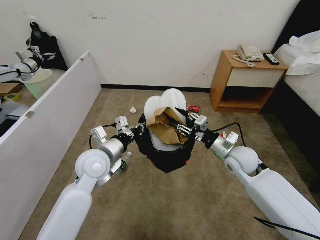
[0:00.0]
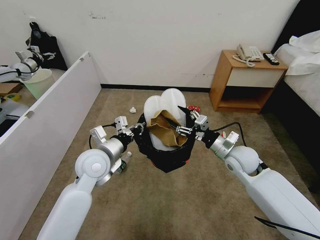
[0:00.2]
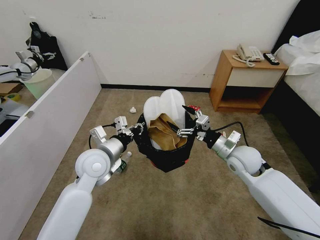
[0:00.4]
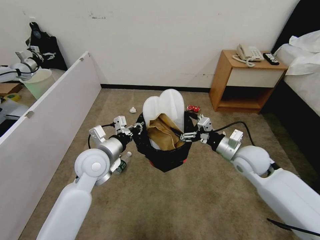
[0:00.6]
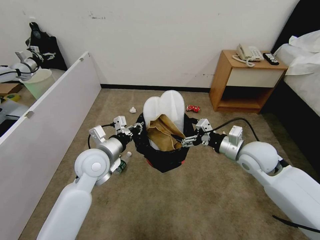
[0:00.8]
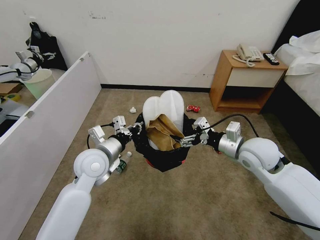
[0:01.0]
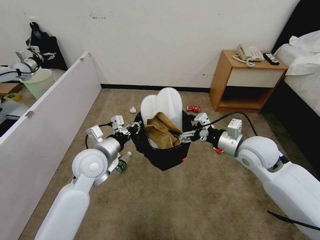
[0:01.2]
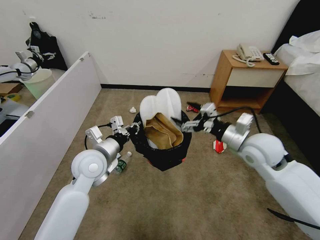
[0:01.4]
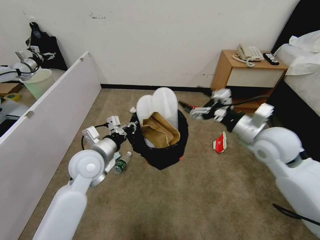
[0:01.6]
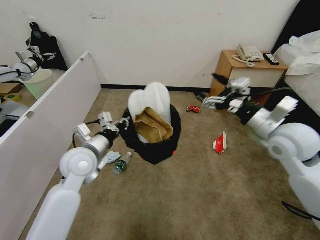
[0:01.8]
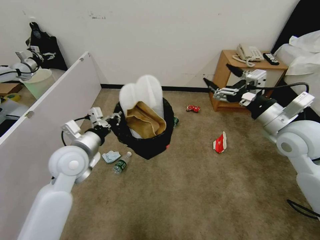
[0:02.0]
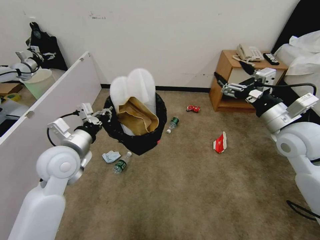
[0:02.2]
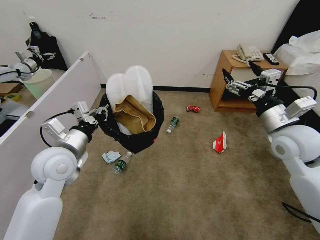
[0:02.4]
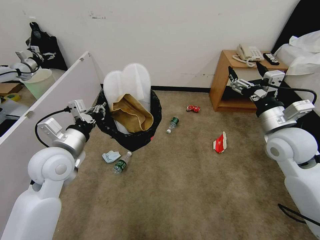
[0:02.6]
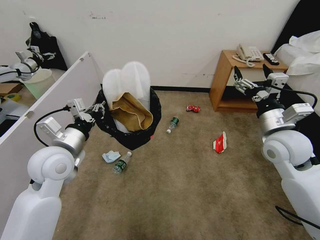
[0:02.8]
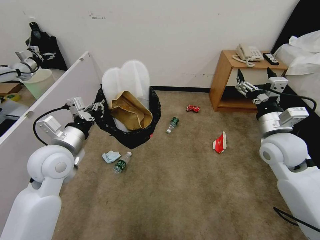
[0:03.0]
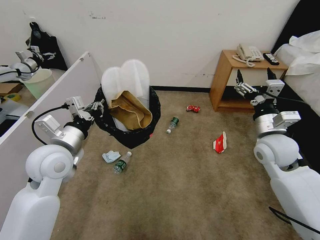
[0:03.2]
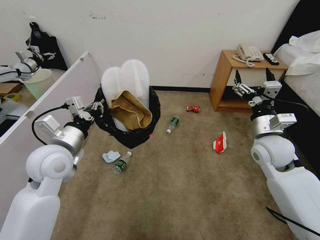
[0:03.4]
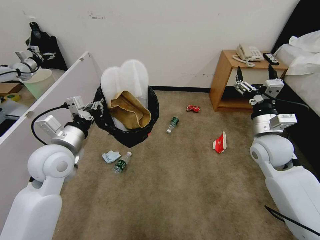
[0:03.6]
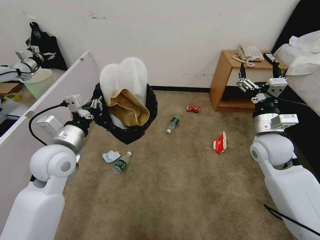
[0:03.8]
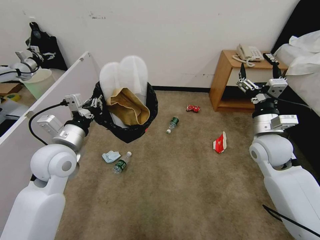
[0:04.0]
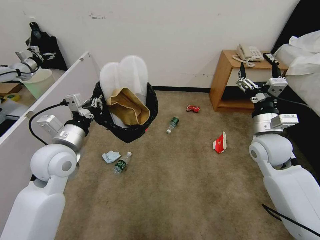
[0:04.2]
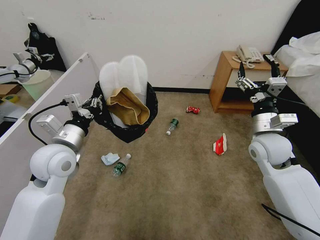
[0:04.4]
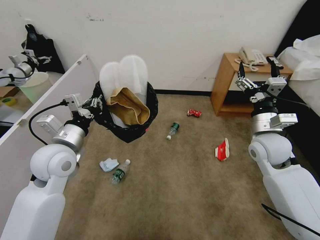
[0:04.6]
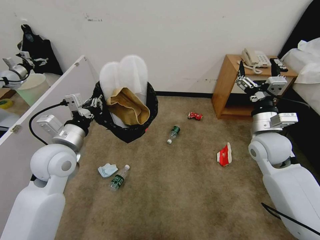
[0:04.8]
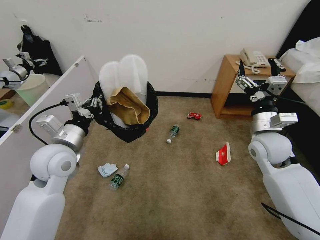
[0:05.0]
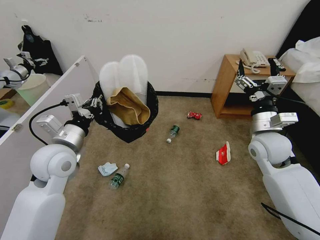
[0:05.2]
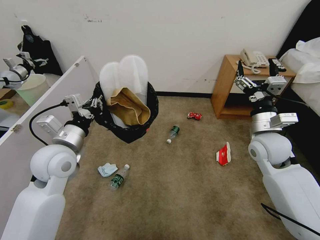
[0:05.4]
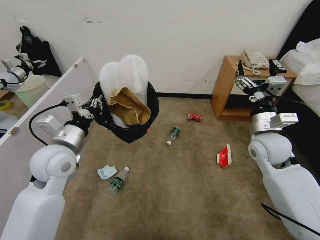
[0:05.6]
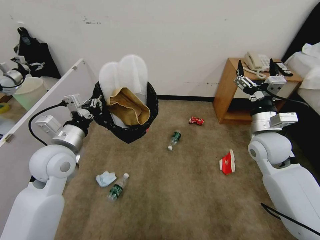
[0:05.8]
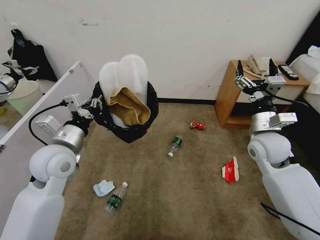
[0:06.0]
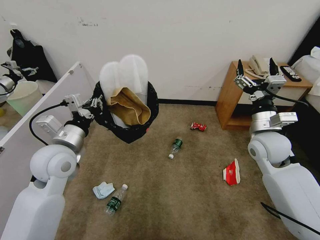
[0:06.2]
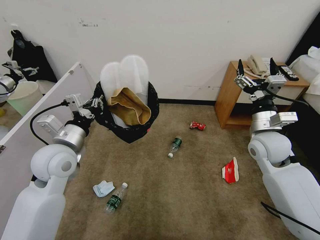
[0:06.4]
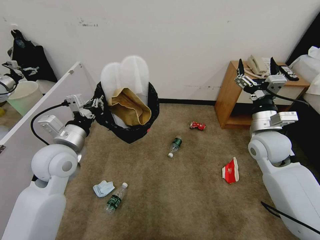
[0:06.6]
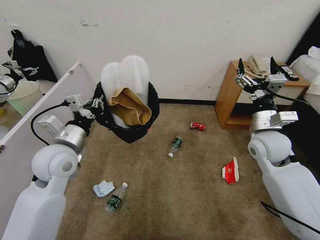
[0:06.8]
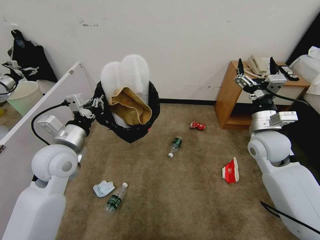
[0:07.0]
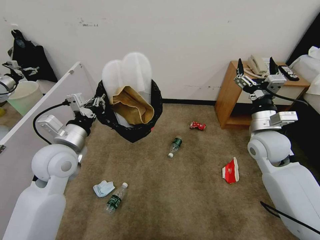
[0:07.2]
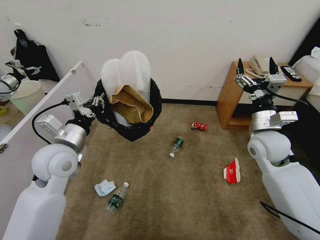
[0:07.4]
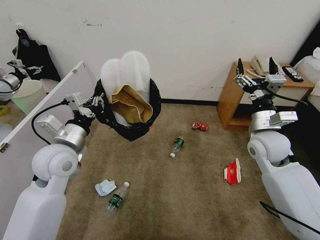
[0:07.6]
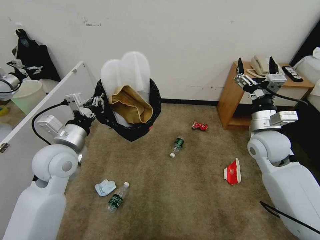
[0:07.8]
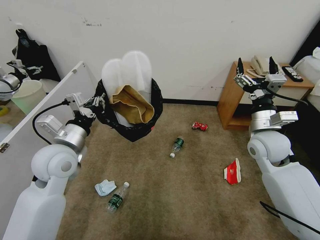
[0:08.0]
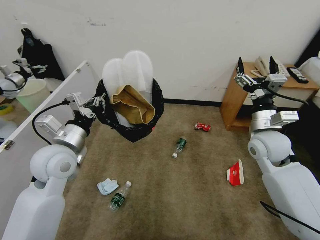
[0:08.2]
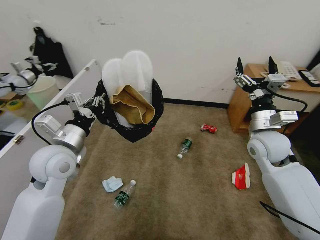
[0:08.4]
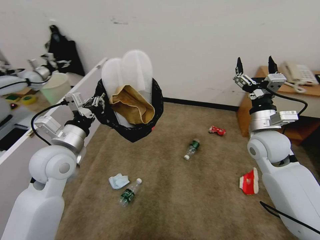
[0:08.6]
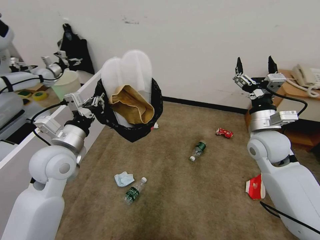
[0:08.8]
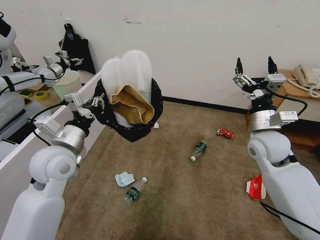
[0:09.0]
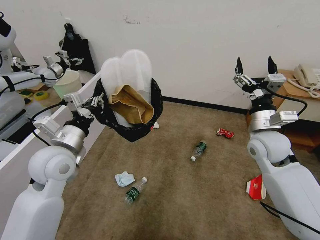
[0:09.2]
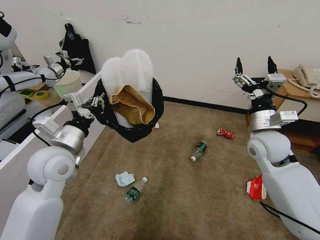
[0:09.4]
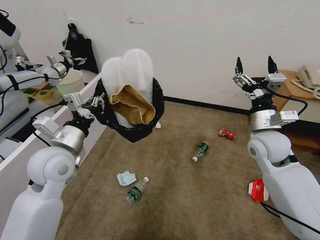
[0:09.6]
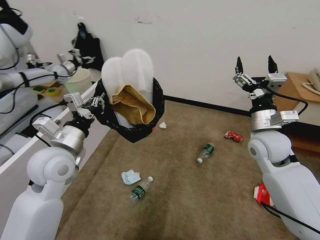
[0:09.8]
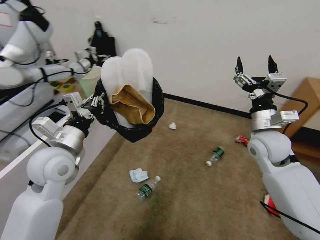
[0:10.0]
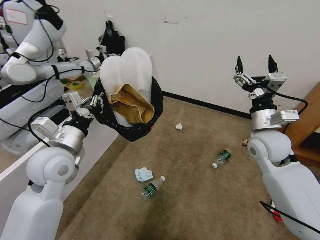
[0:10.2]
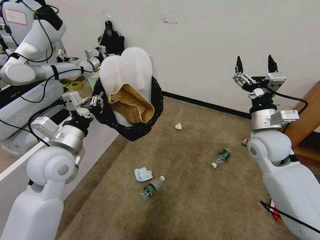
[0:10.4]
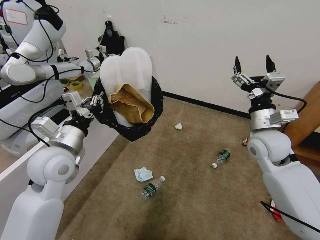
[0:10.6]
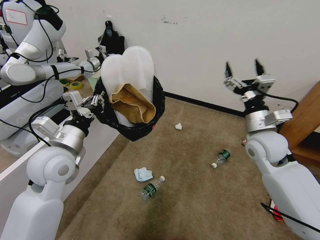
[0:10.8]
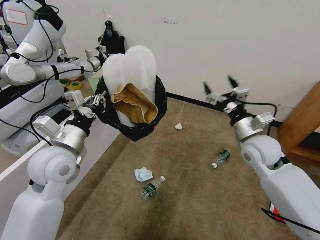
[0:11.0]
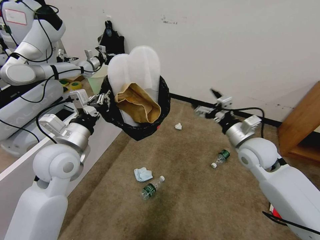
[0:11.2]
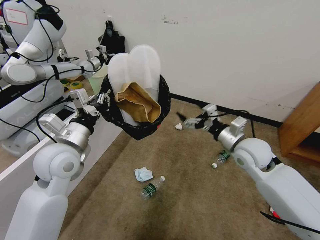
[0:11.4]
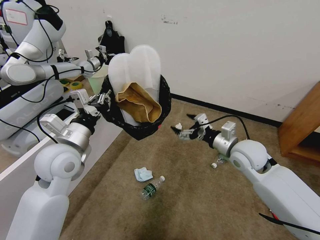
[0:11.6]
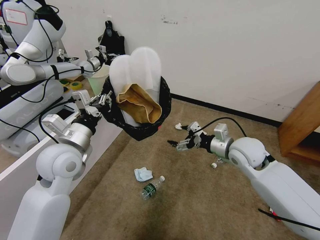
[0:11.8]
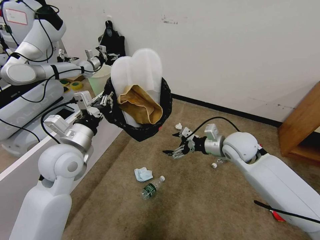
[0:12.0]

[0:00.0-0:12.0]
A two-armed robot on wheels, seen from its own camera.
Task of the whole recording: Pick up the trash bin, then pick up the garbage from the floor and place it into the trash bin.
0:00.0 to 0:01.6: The right gripper travels upward by roughly 10 cm, and opens up.
0:01.6 to 0:03.0: The left gripper travels to the left and upward by roughly 10 cm.
0:03.0 to 0:04.4: There are only small adjustments of the grippers.
0:06.0 to 0:07.6: Neither gripper changes place.
0:10.4 to 0:12.0: The right gripper is displaced to the left by some 5 cm.

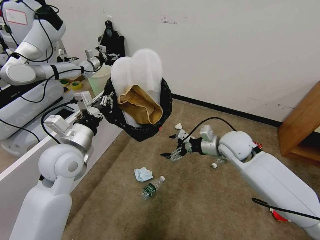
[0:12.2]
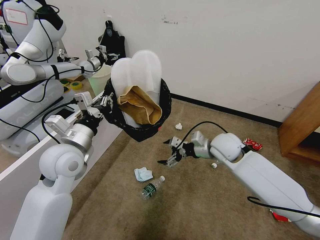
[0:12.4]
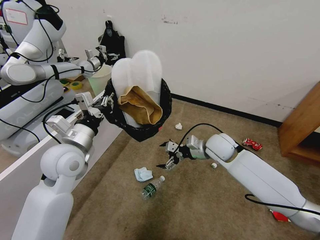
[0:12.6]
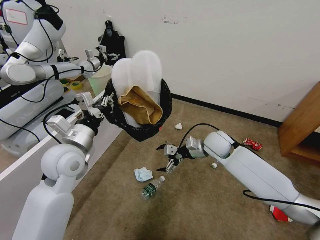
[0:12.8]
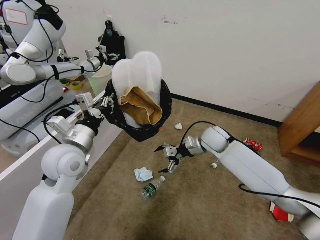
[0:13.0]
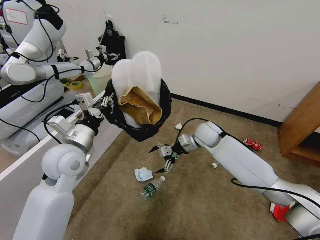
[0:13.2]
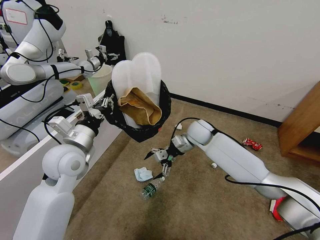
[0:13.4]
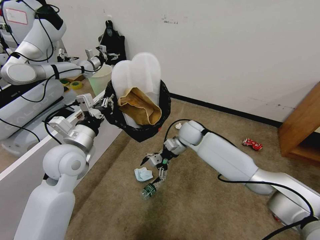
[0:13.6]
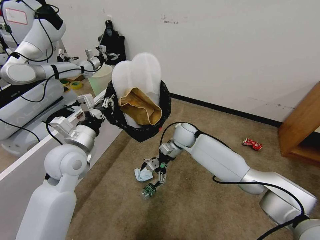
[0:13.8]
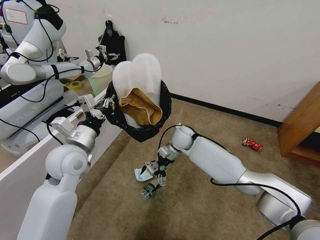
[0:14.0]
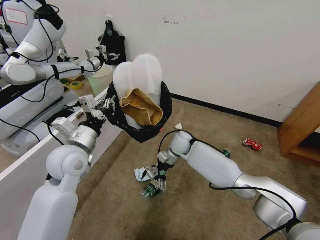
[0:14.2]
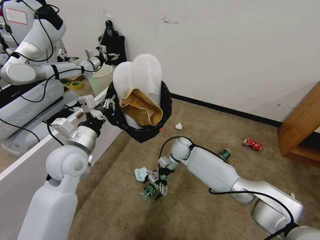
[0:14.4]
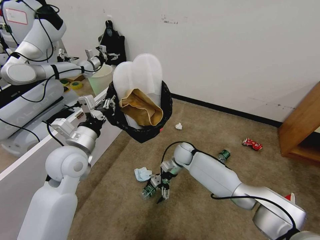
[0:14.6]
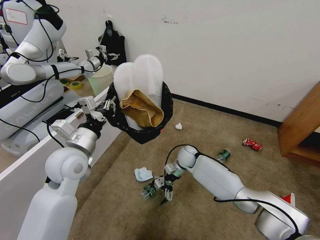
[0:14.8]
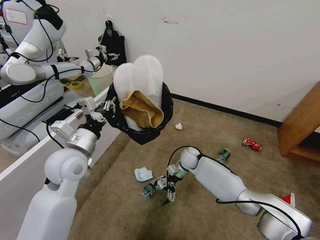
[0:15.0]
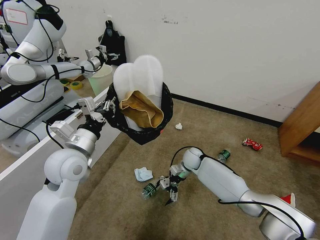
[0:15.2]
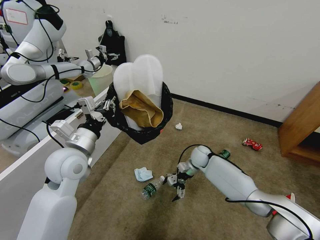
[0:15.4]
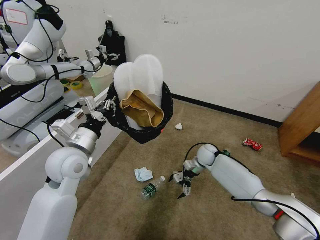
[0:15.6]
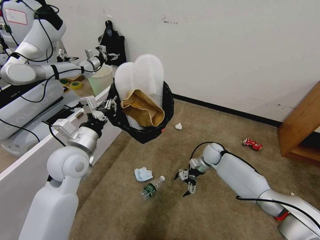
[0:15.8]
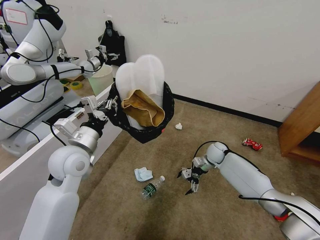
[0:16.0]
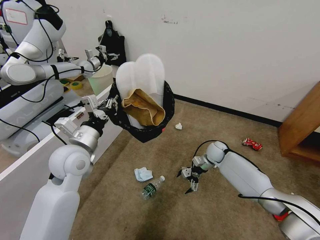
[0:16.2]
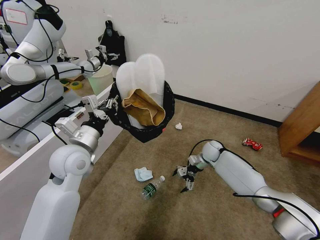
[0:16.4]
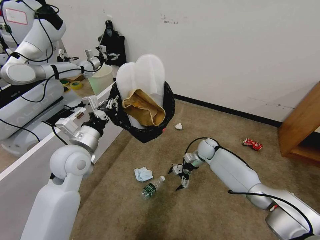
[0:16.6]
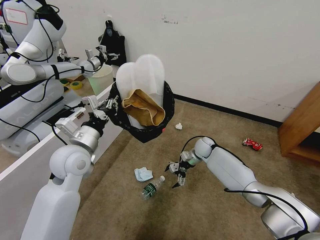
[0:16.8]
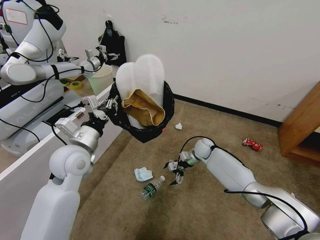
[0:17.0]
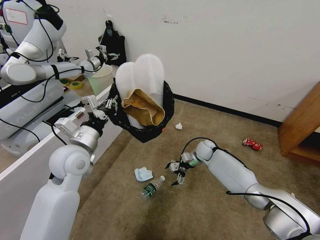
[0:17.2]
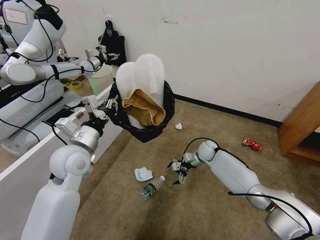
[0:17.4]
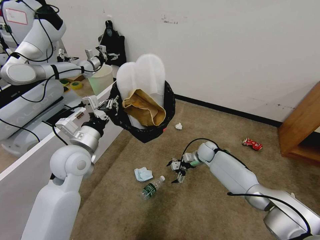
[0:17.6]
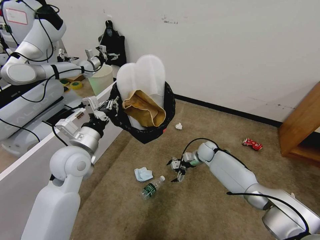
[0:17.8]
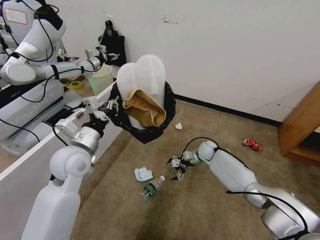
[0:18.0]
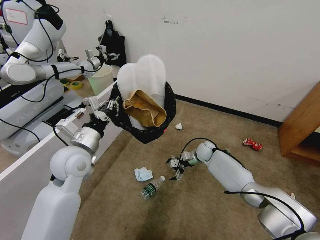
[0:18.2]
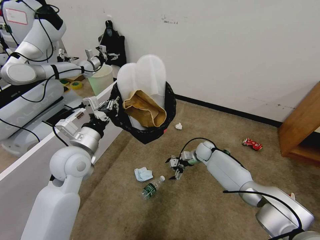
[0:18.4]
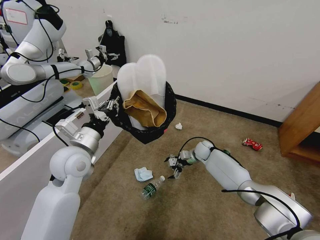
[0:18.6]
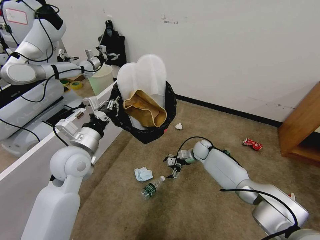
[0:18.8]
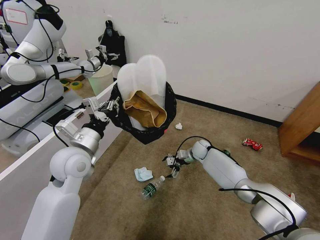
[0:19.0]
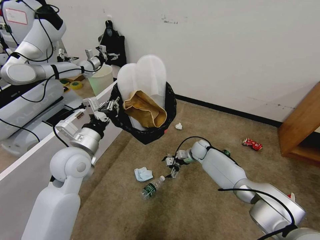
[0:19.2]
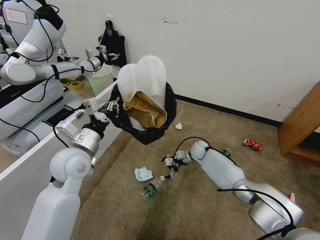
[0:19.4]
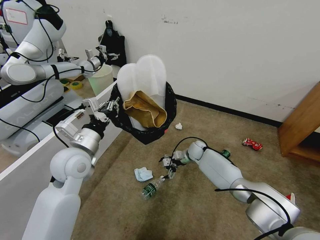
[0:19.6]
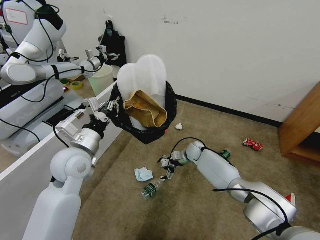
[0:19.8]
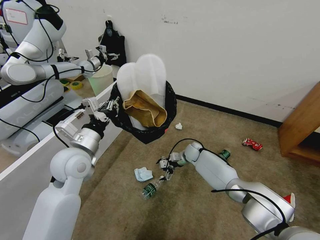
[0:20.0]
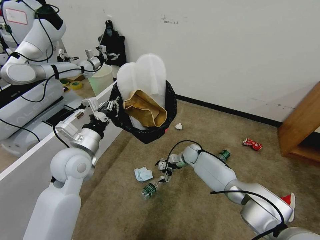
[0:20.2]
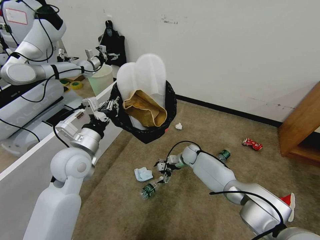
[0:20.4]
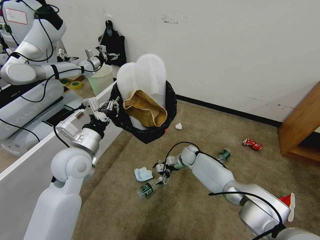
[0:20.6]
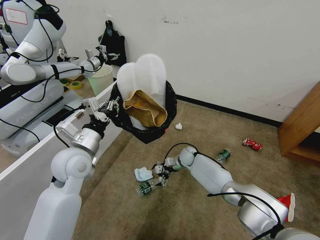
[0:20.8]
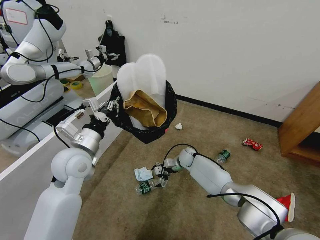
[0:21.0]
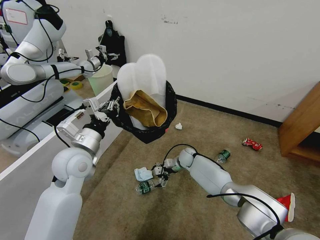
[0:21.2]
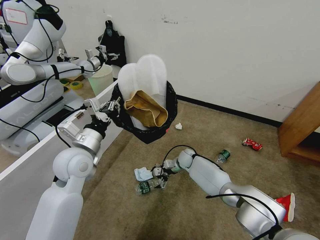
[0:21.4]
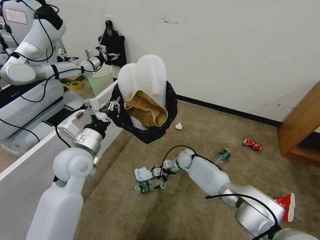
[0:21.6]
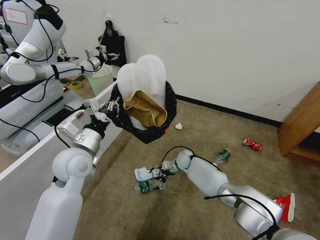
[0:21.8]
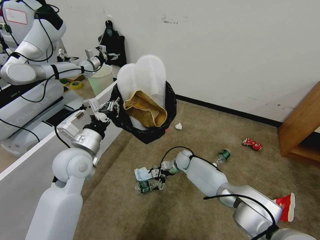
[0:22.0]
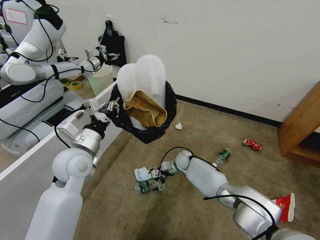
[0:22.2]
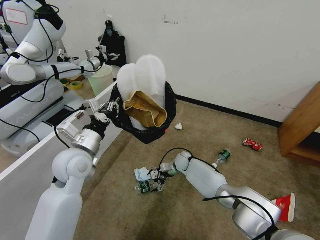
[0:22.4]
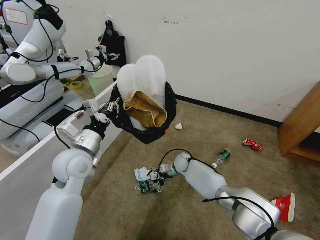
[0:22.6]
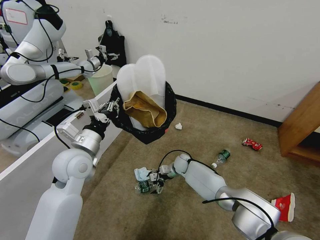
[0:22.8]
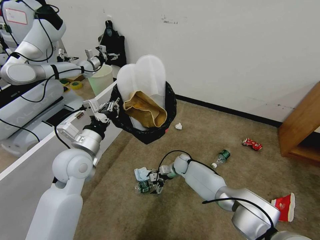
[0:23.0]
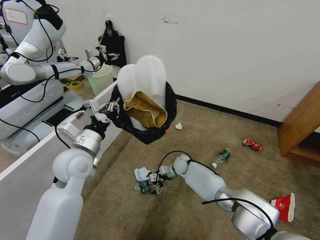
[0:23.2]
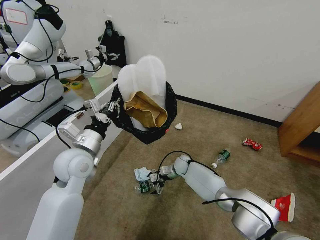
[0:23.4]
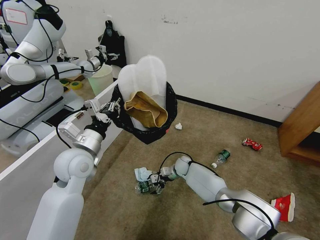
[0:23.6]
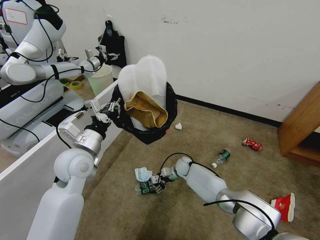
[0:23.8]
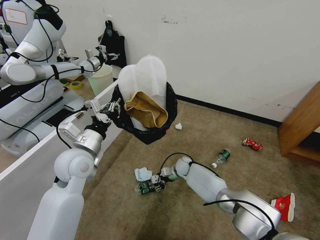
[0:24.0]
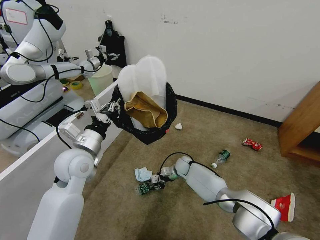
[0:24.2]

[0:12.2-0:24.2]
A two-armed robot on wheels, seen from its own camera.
Task of the whole recording: Pick up the trash bin, then pick up the garbage from the floor and place it into the trash bin.
0:12.2 to 0:13.8: The right gripper moves to the left, forward and downward, some 20 cm.
0:13.8 to 0:15.2: The right gripper moves downward and to the right, roughly 15 cm.
0:15.2 to 0:16.6: The right gripper travels to the right by roughly 5 cm.
0:16.6 to 0:18.2: The grippers move only a little.
0:18.2 to 0:19.8: The right gripper shifts by some 5 cm.
0:19.8 to 0:21.2: There are only small adjustments of the grippers.
0:21.2 to 0:22.6: The grippers move only a little.
0:22.6 to 0:24.2: The right gripper closes up.
